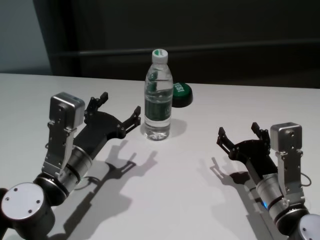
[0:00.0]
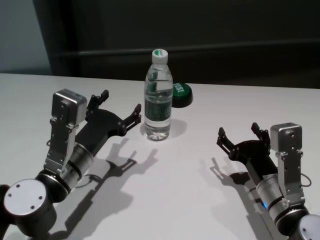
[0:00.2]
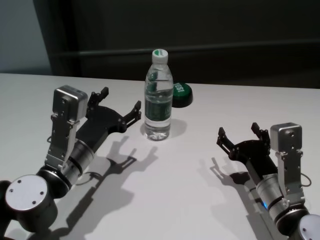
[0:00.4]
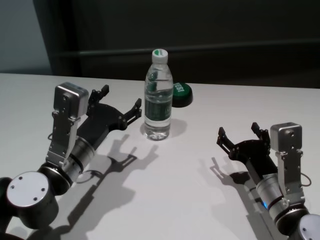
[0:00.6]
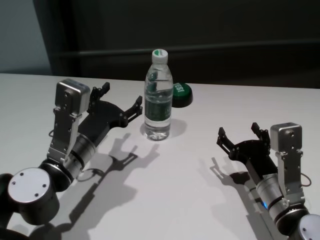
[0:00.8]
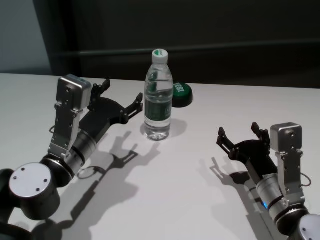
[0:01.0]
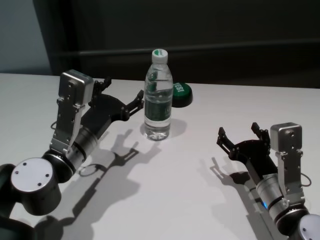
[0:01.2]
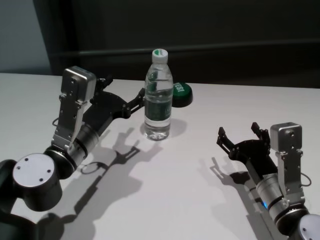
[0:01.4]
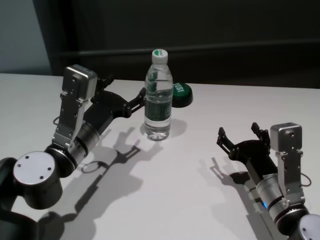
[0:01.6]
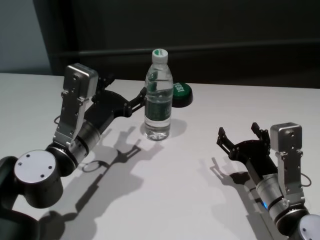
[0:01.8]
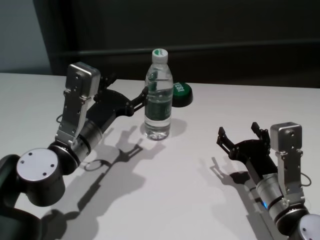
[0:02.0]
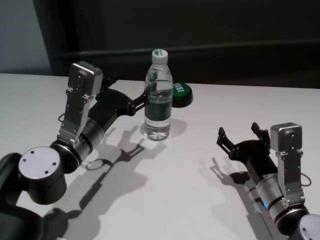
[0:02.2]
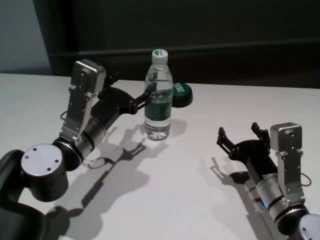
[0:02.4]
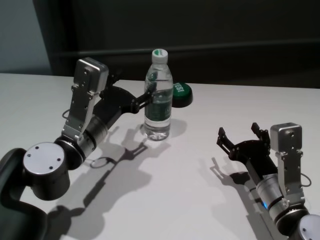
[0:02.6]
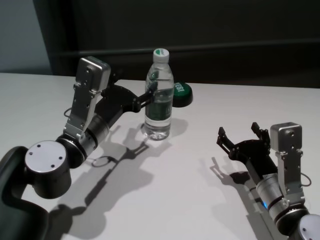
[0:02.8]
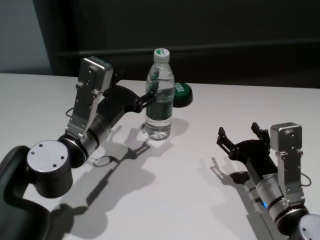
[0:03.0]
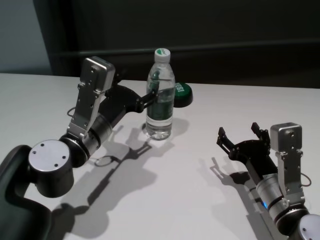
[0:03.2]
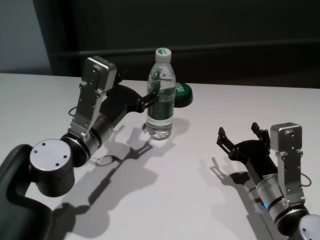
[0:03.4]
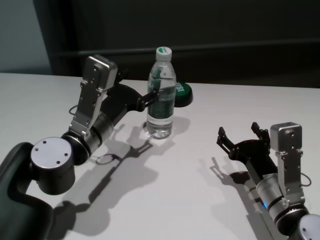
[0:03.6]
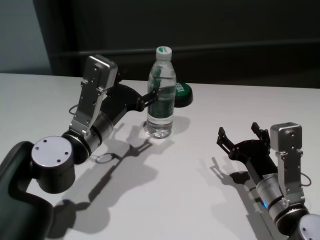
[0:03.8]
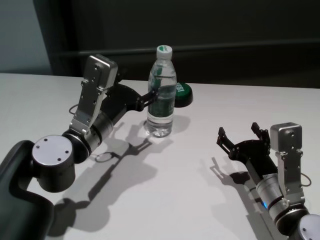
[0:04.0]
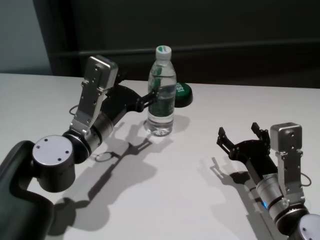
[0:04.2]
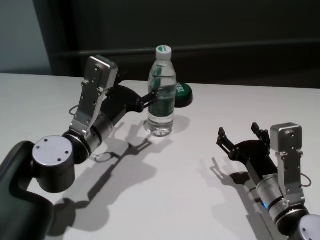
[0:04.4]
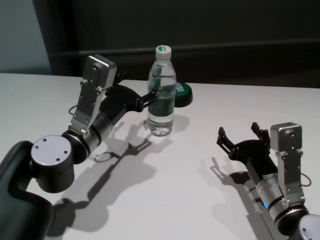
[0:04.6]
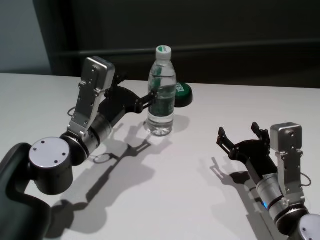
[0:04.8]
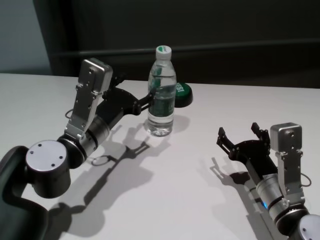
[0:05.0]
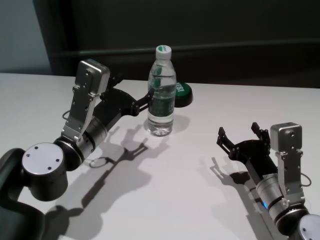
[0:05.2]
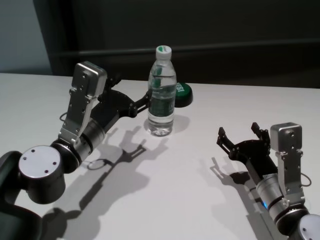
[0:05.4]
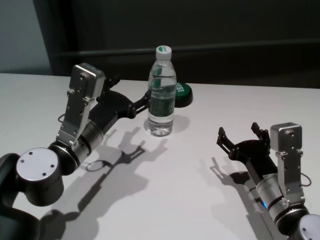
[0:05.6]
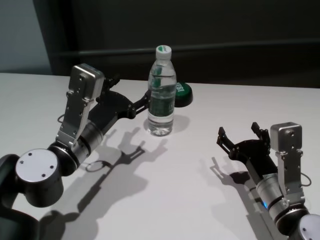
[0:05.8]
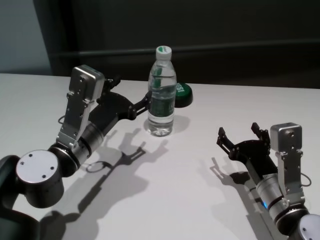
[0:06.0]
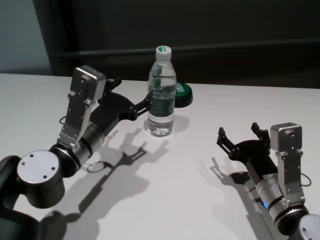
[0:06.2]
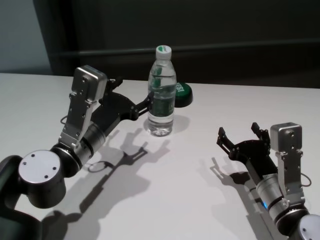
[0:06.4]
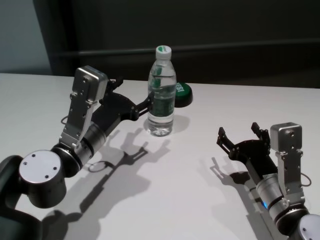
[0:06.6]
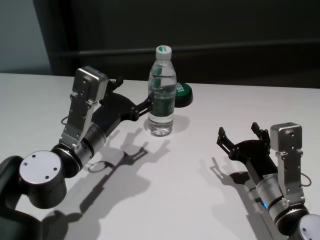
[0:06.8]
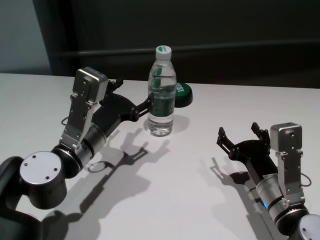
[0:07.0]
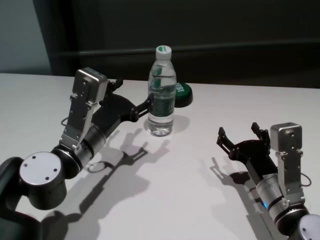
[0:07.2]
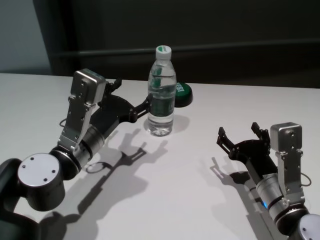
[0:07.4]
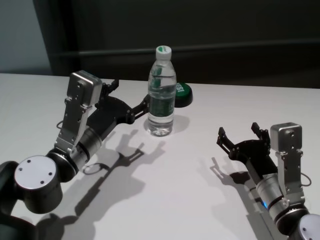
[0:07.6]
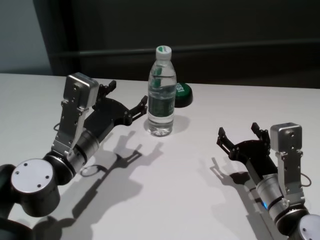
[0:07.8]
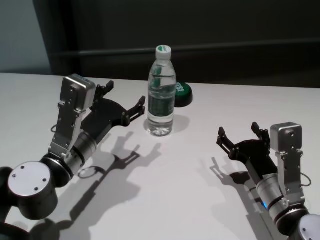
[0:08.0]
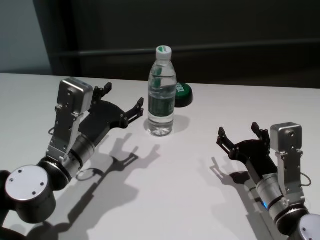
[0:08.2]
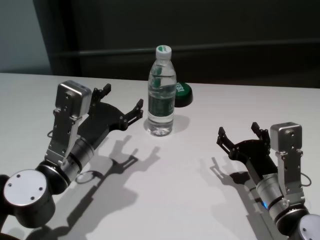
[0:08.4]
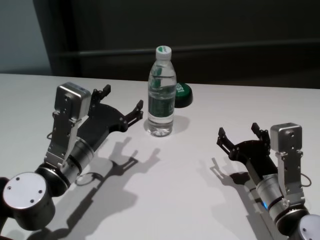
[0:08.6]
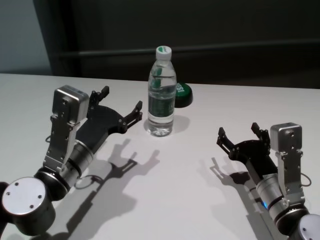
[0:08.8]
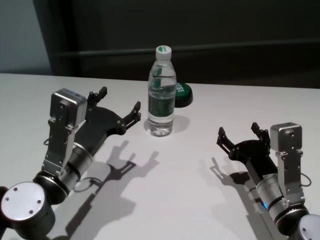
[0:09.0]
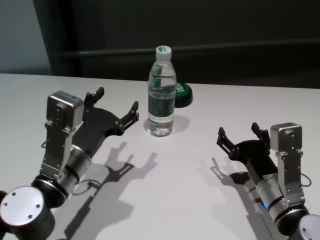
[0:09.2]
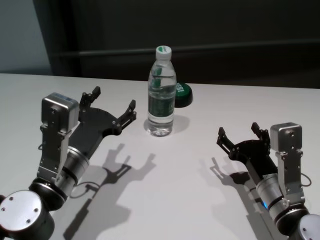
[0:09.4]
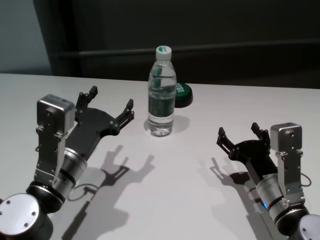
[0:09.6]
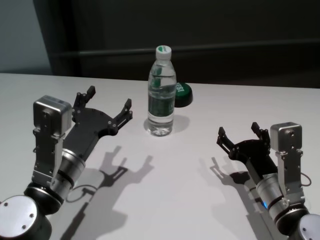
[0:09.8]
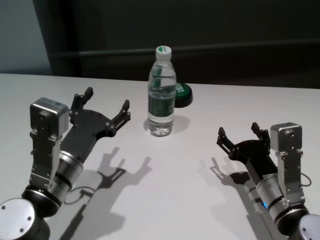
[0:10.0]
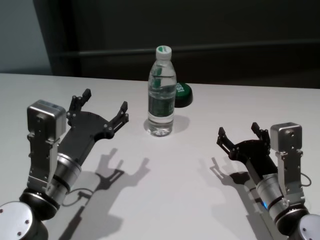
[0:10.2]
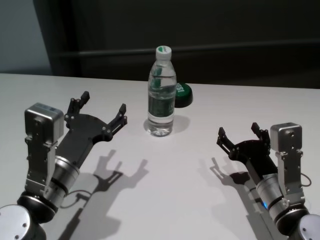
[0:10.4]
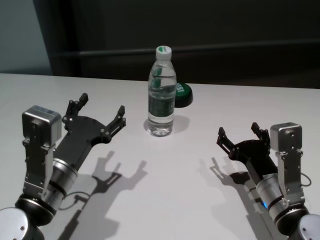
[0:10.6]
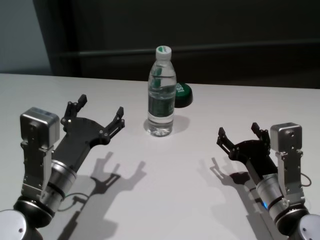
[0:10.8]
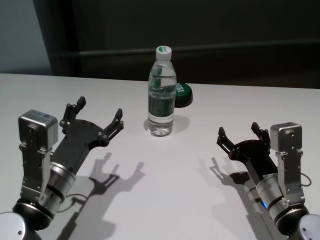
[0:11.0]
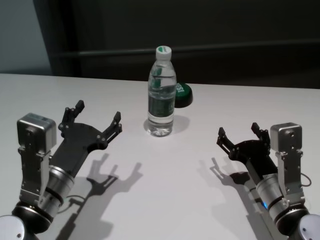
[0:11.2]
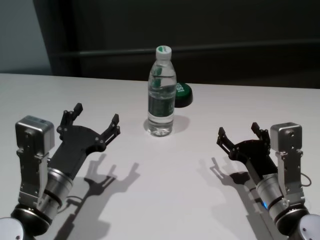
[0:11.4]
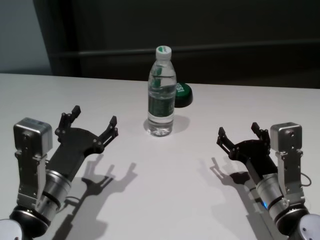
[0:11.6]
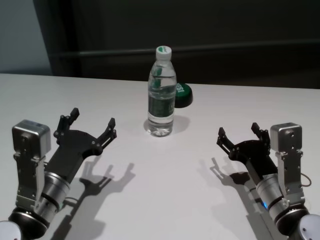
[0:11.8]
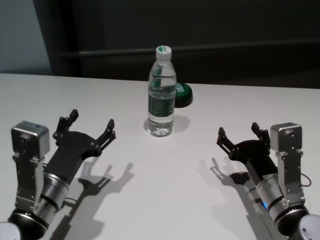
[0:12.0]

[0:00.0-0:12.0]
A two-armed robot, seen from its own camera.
Task of the whole recording: return to a safe position after touching an obstacle with your arm on the white table.
Step, 0:00.0 to 0:08.2: Touch the bottle with left gripper.

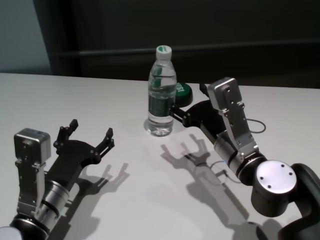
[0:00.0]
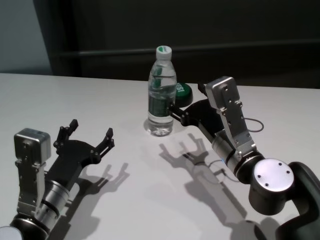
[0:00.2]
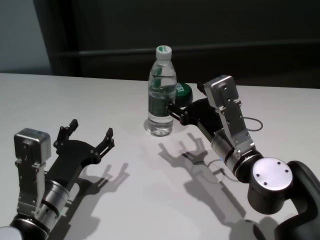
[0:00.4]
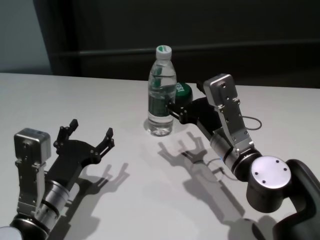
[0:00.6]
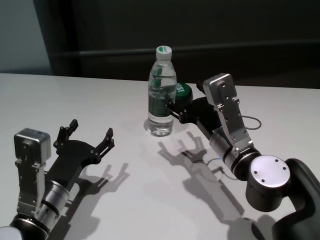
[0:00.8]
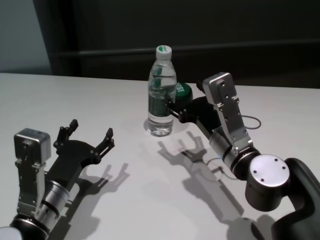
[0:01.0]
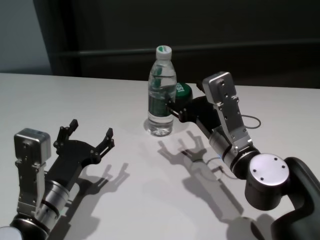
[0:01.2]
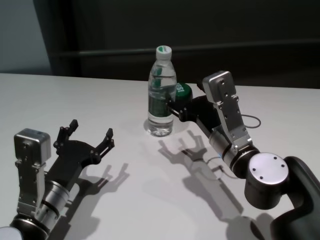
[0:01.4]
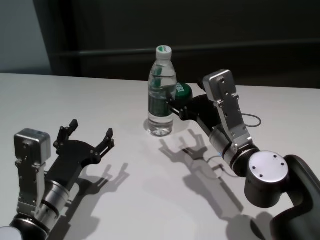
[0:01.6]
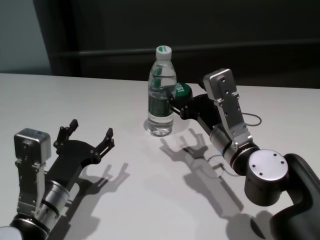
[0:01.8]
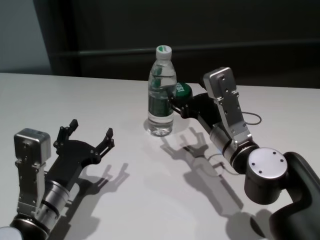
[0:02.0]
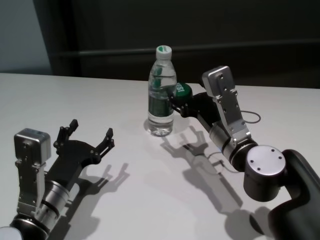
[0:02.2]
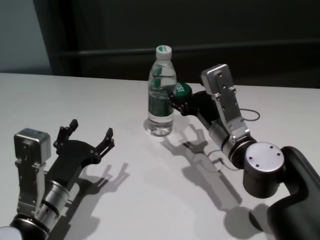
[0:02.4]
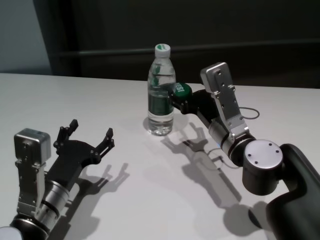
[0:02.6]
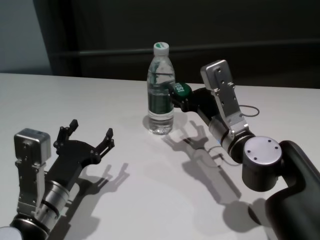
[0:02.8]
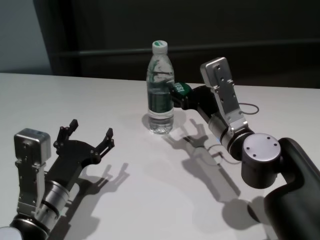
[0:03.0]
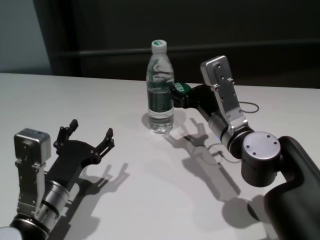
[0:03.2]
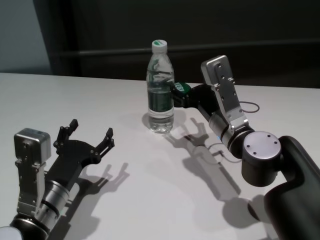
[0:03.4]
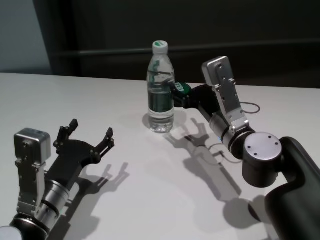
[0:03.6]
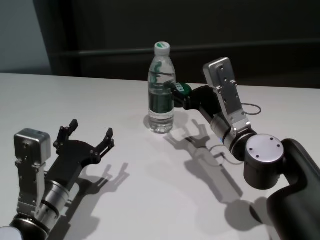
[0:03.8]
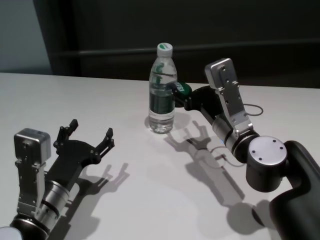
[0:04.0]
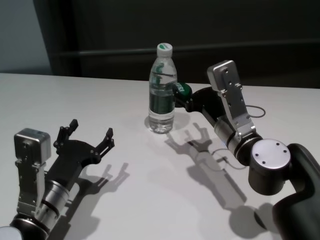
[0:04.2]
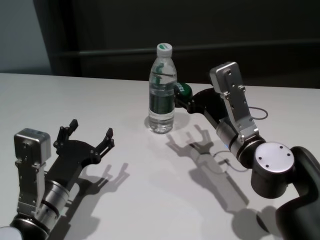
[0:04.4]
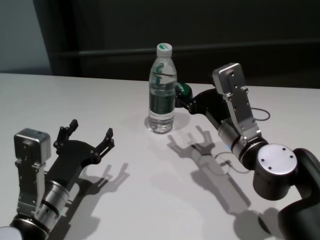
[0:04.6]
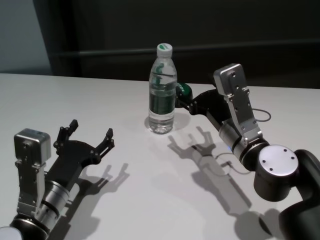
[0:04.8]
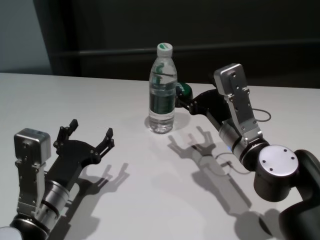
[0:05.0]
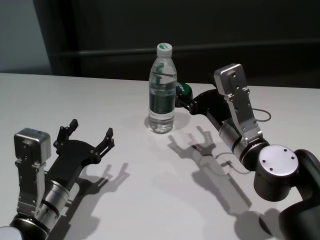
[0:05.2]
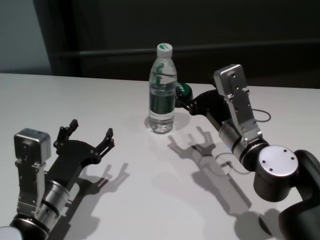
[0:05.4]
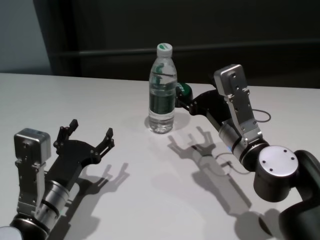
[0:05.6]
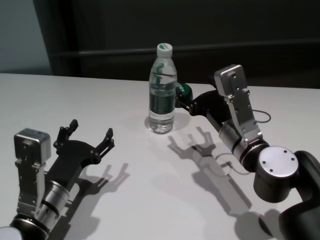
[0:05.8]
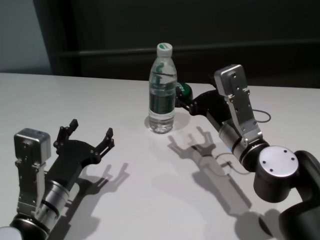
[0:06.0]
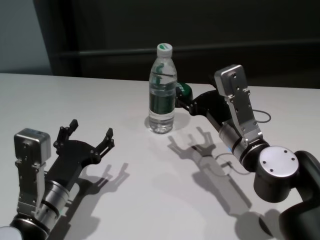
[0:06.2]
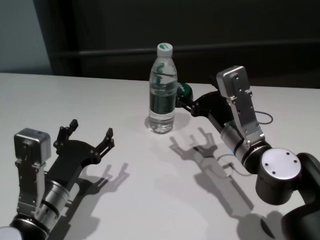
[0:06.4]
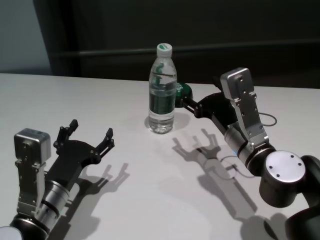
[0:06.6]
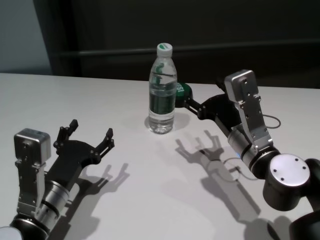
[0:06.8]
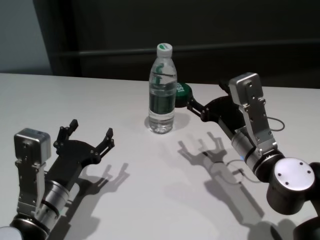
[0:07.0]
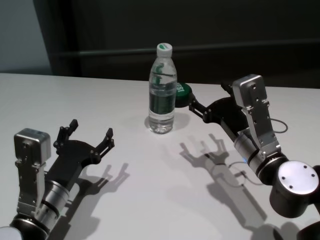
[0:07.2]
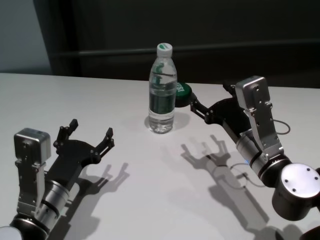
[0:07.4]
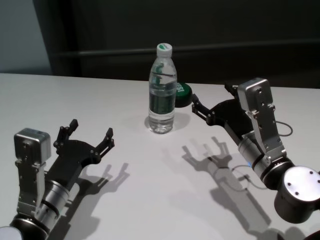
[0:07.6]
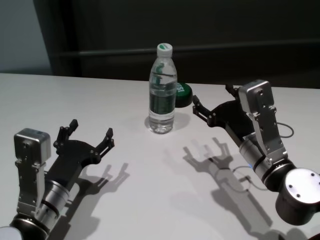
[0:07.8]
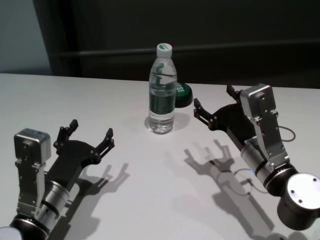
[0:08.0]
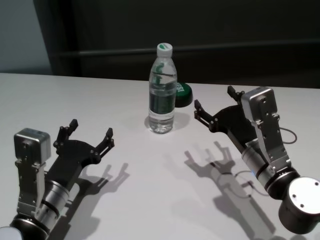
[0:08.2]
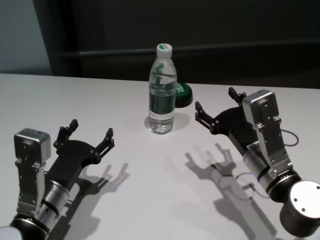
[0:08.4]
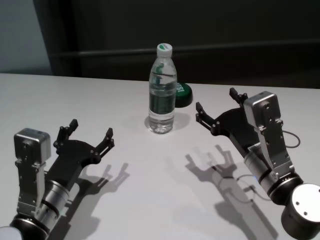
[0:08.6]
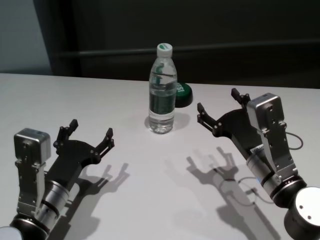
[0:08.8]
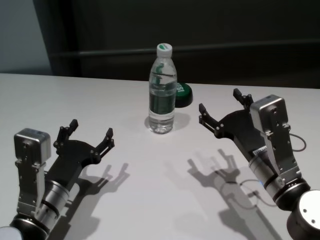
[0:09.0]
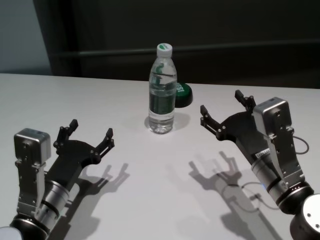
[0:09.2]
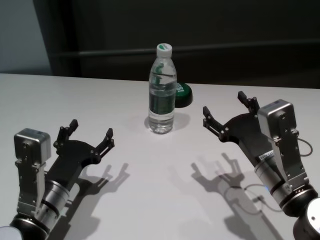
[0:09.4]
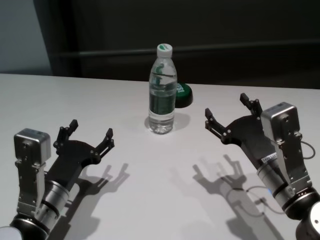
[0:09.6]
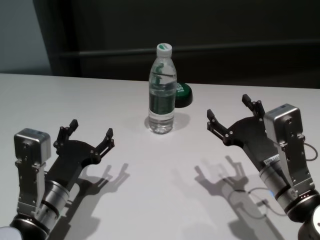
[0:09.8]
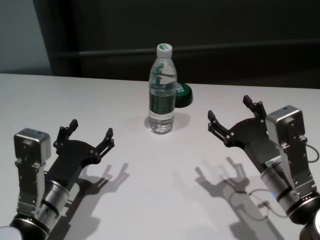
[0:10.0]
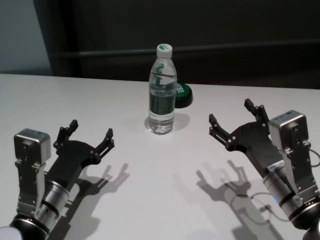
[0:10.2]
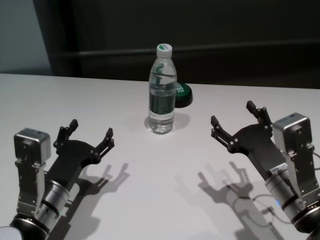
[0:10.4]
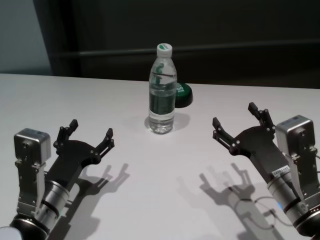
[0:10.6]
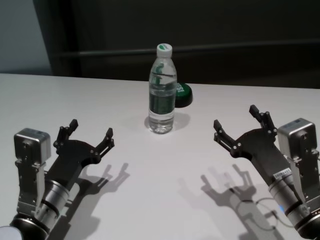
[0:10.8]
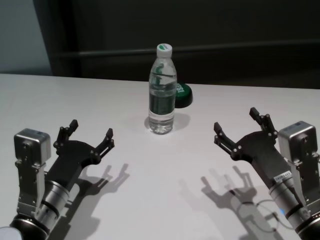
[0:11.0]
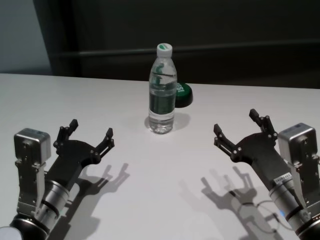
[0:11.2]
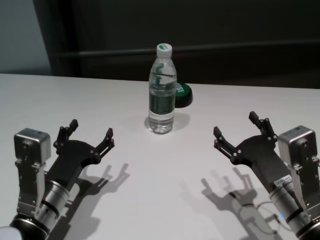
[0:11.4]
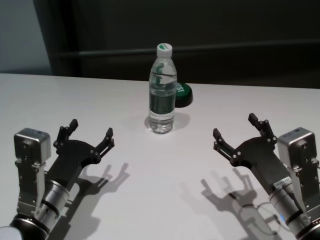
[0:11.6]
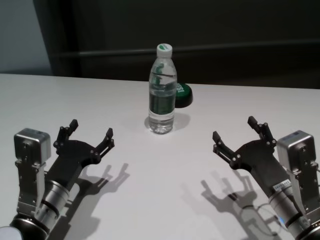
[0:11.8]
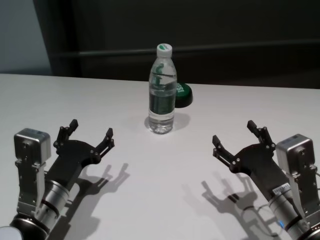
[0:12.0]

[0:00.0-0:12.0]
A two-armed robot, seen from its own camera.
Task of the whole recording: return to a safe position after touching an obstacle with your arm on the white table.
Step, 0:00.0 to 0:06.6: Touch the bottle with right gripper.
